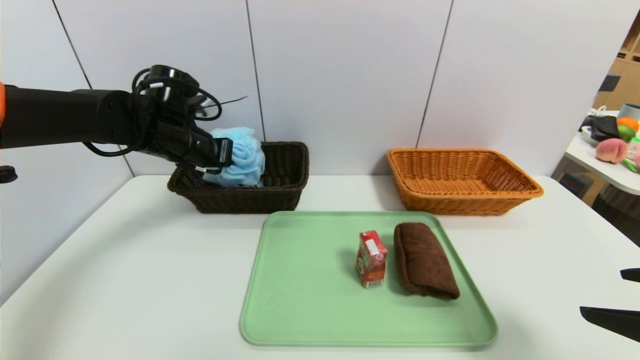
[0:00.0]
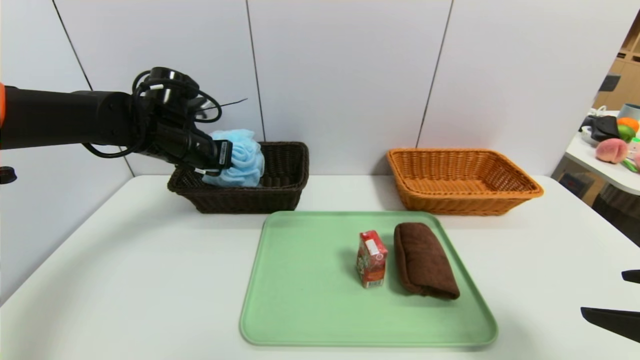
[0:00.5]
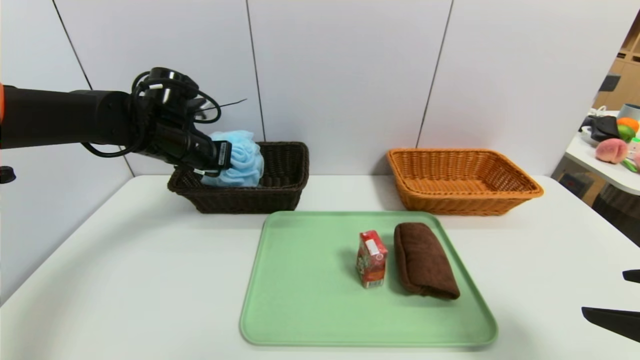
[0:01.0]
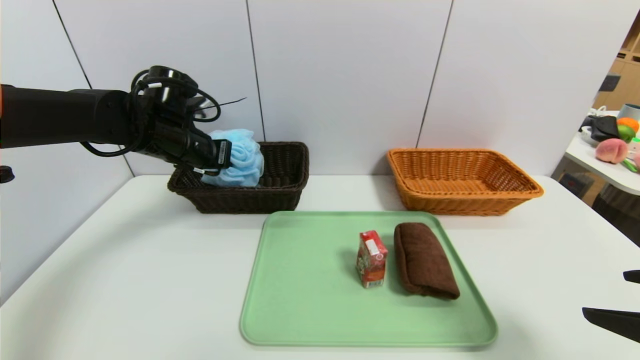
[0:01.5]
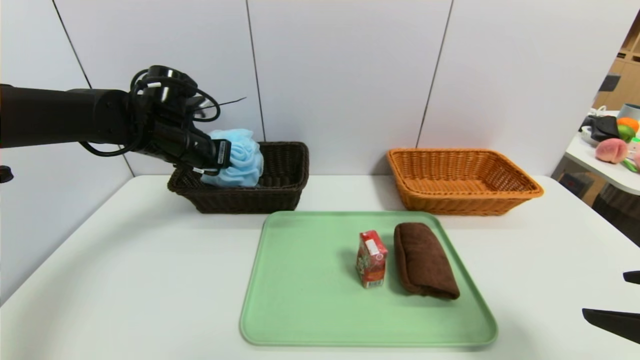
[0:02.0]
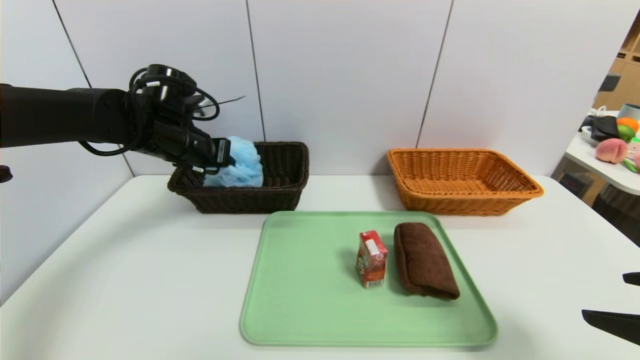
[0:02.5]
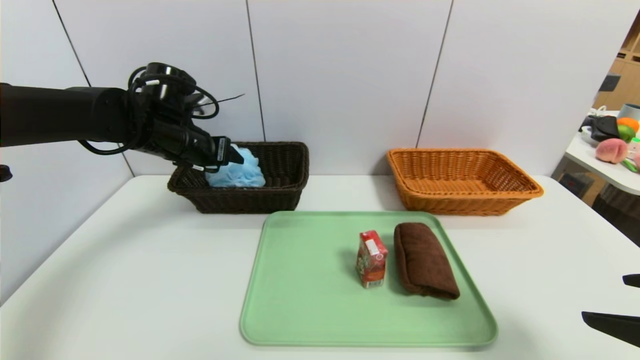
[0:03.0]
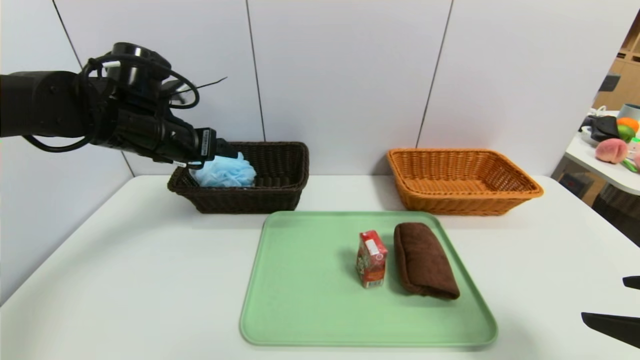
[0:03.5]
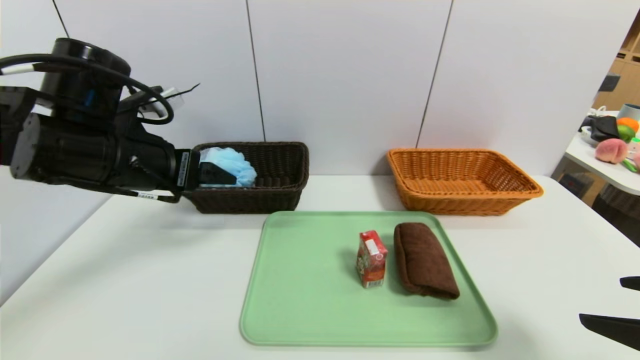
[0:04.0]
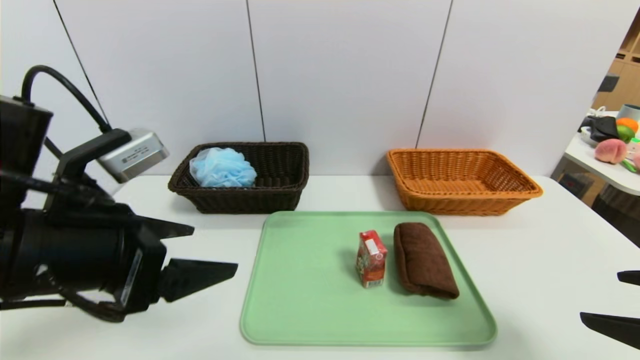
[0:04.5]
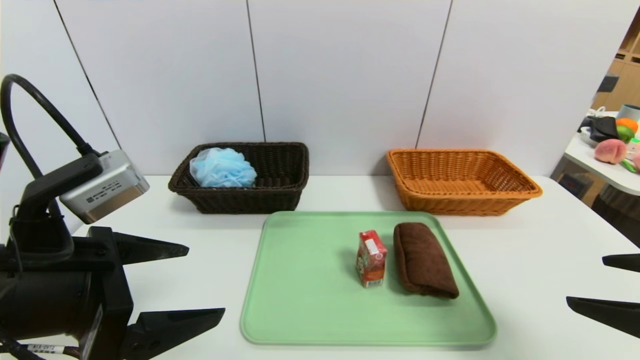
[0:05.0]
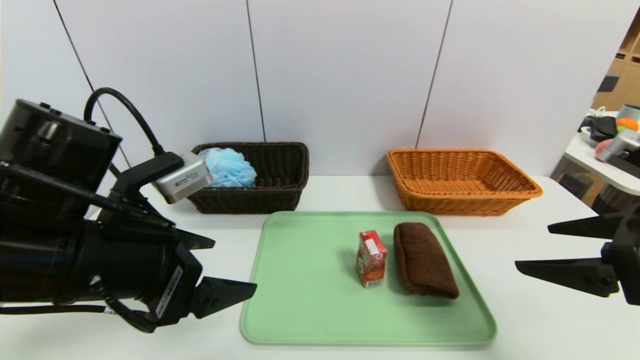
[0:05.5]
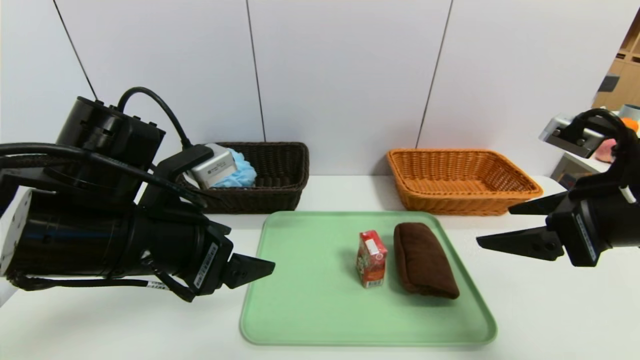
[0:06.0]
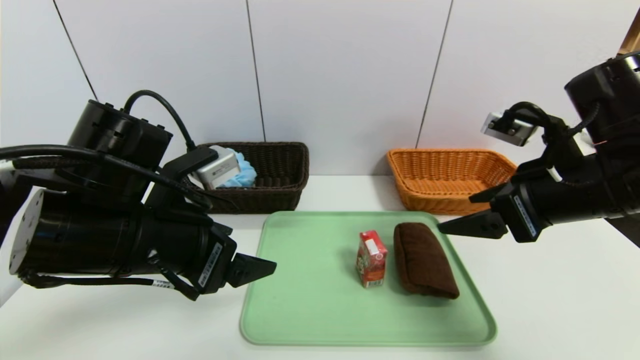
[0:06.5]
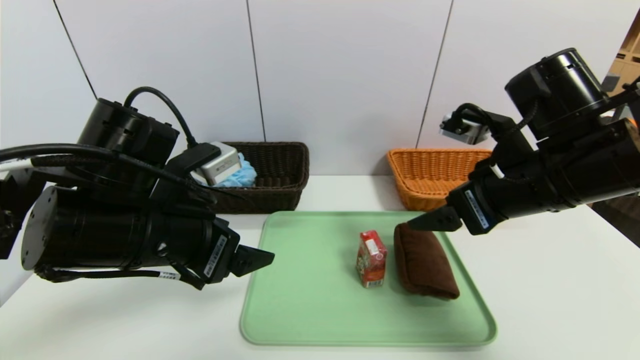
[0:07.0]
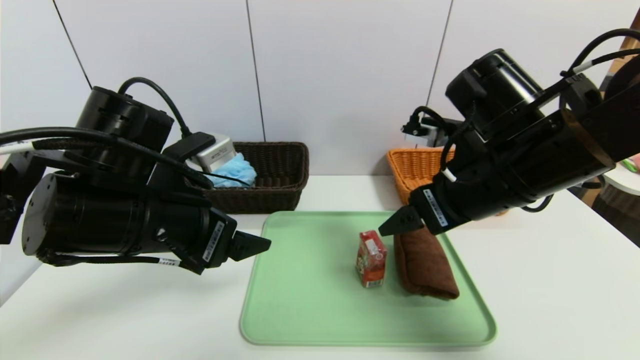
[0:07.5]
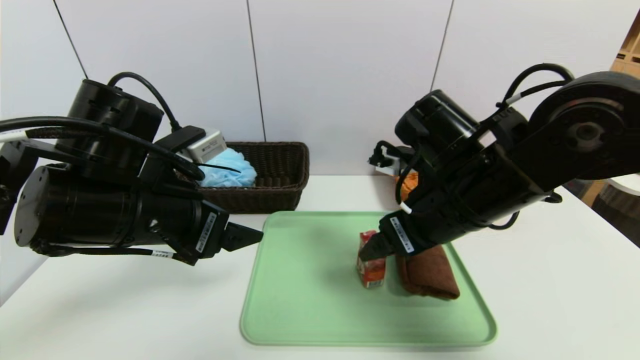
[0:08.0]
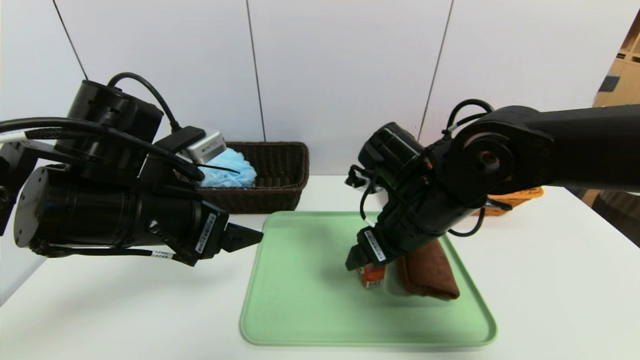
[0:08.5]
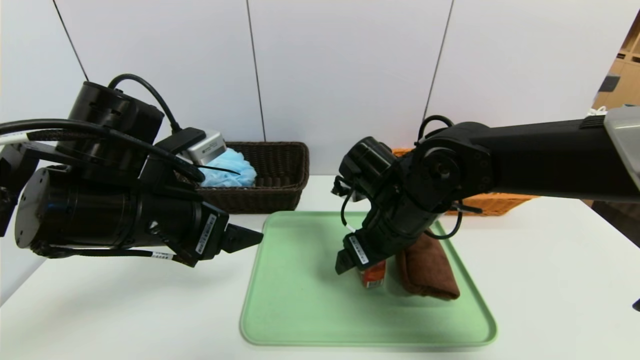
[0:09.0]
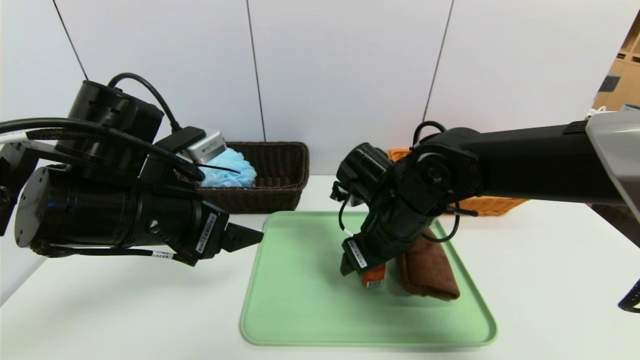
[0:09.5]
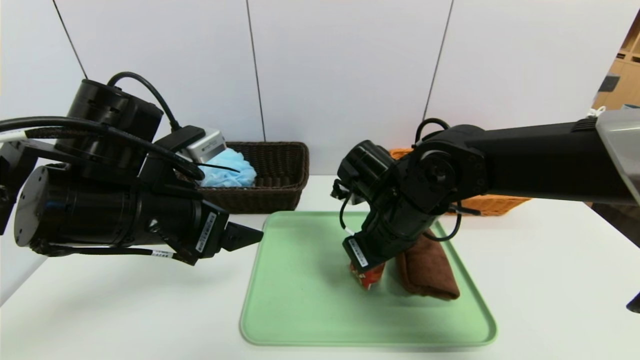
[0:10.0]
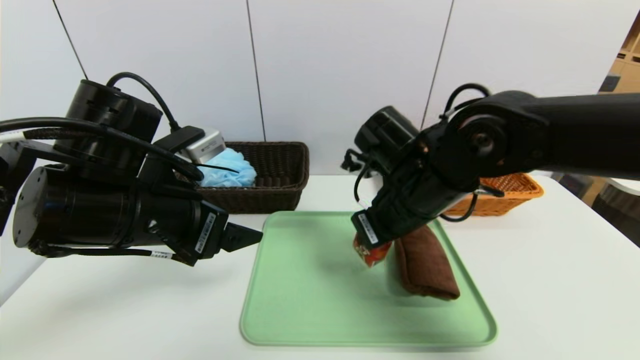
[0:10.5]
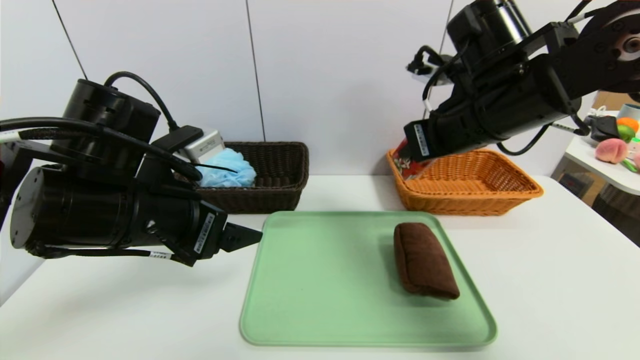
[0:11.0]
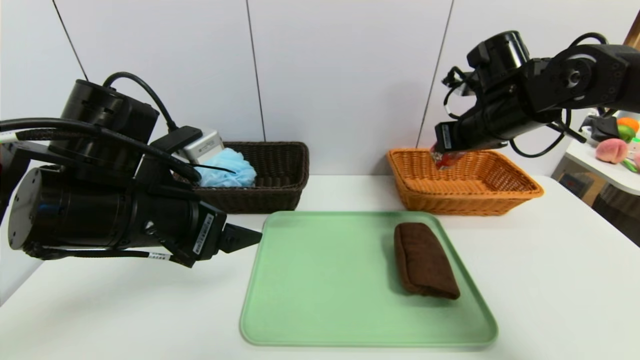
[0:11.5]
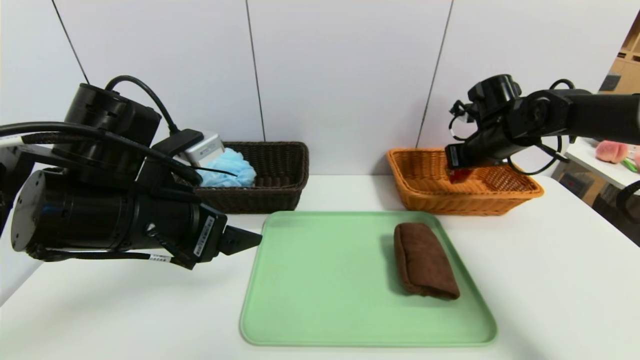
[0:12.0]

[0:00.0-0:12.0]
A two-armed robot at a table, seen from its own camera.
Task of the whole recording: place the food in the right basket with the right gripper, and place the non food items in the left basket with the left gripper.
Step, 0:00.0 to 0:03.0: Grasp the shower sphere and put it in the left basket.
0:00.0 to 0:02.0: The two grippers keep their place.
0:02.0 to 0:04.0: The left gripper heads backward, covering approximately 15 cm, and opens up.
0:04.0 to 0:06.0: The left gripper heads backward and to the right, covering roughly 10 cm. The right gripper travels forward by some 10 cm.
0:06.0 to 0:08.0: The right gripper is displaced to the left by some 15 cm.
0:08.0 to 0:10.0: The right gripper is displaced downward by approximately 5 cm, and closes.
0:10.0 to 0:12.0: The right gripper goes about 25 cm to the right and forward.

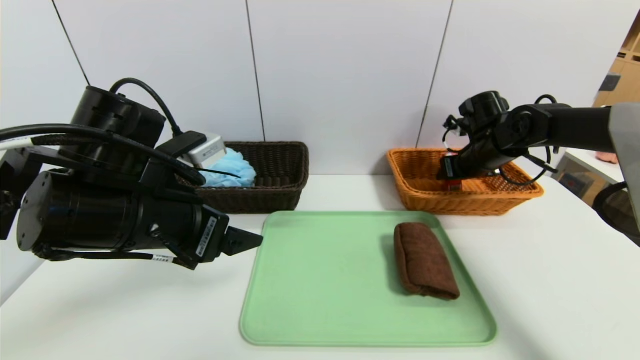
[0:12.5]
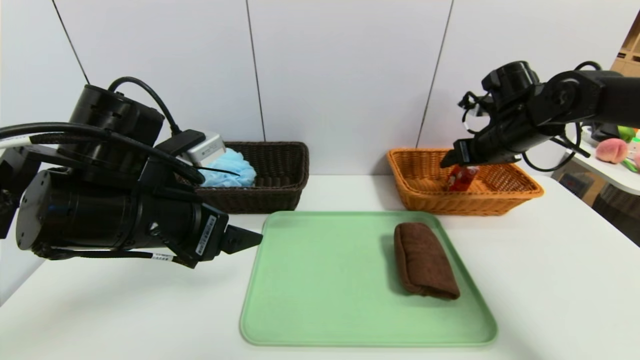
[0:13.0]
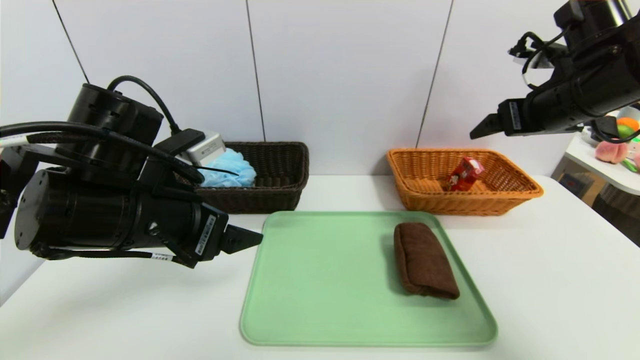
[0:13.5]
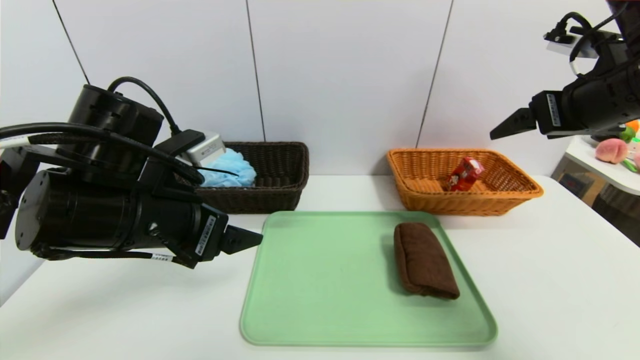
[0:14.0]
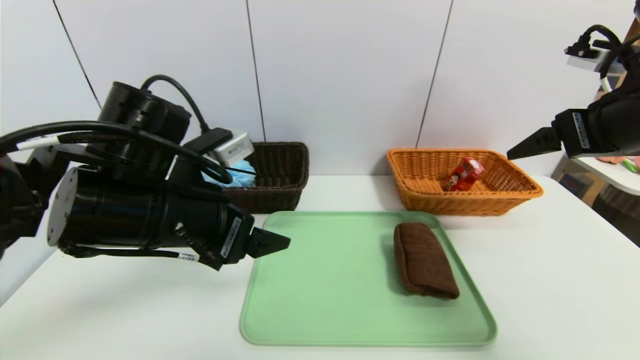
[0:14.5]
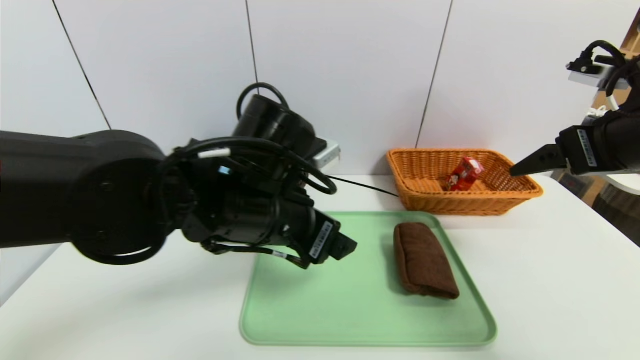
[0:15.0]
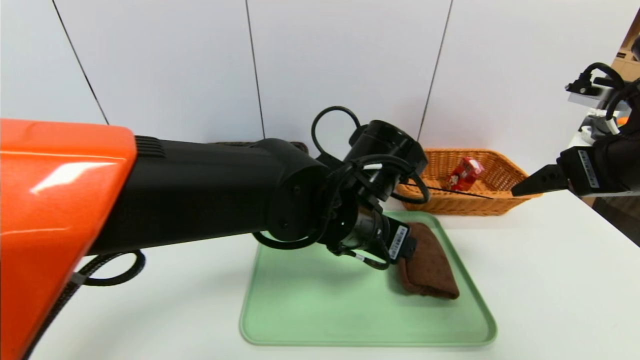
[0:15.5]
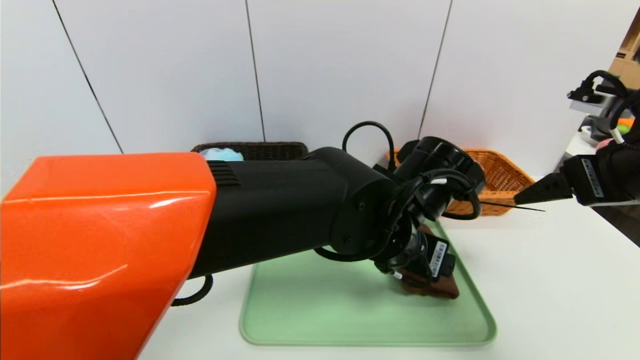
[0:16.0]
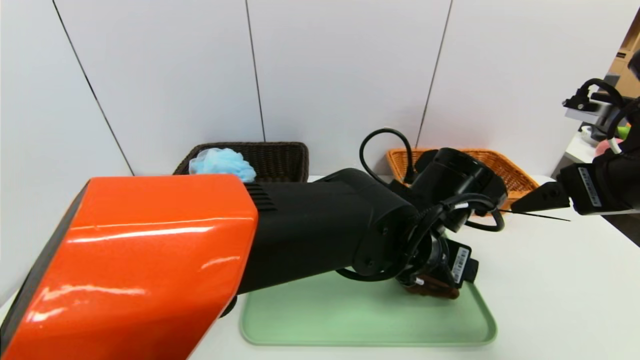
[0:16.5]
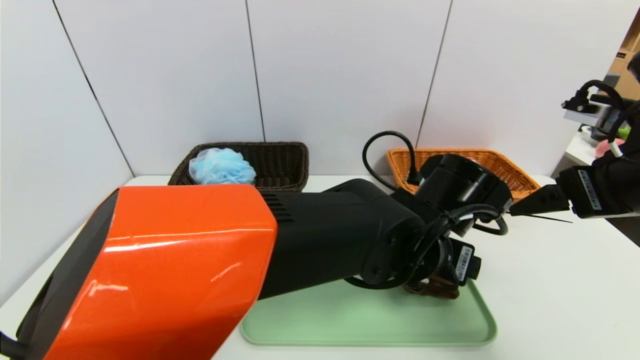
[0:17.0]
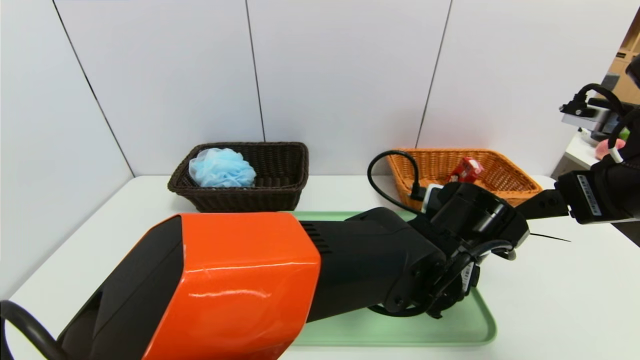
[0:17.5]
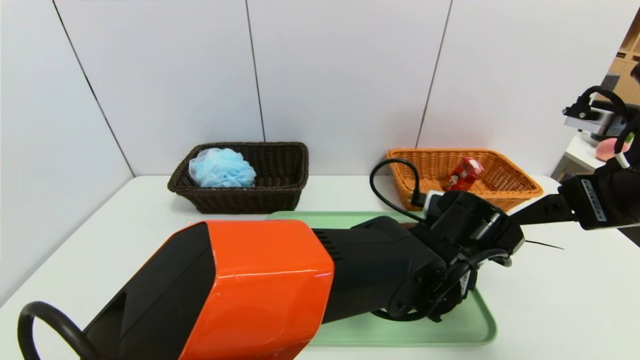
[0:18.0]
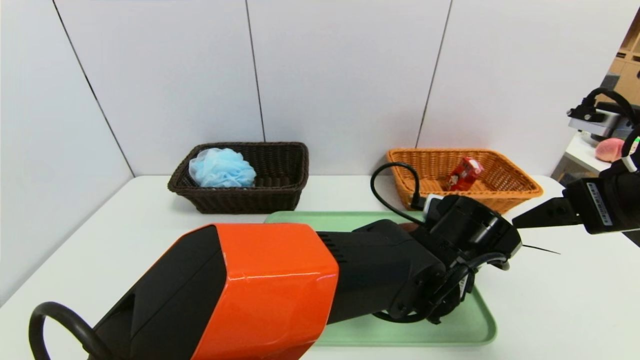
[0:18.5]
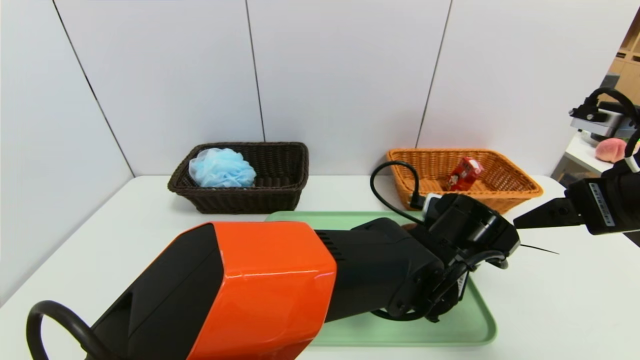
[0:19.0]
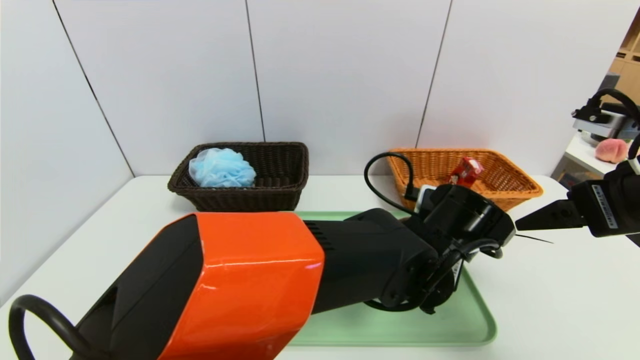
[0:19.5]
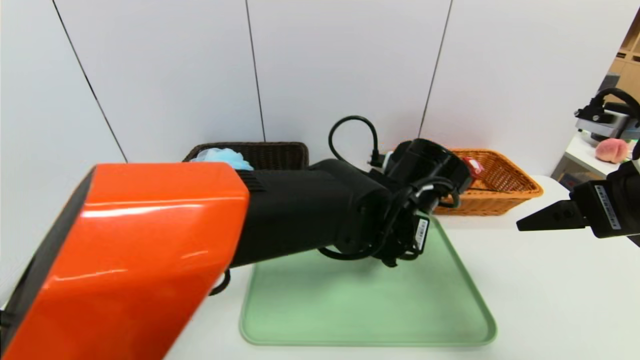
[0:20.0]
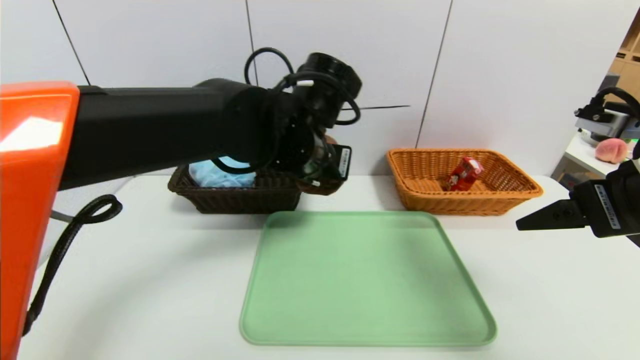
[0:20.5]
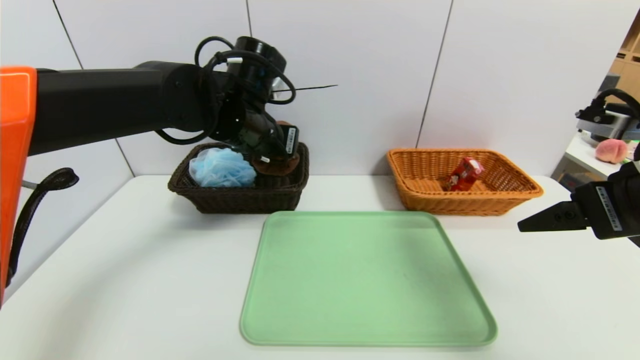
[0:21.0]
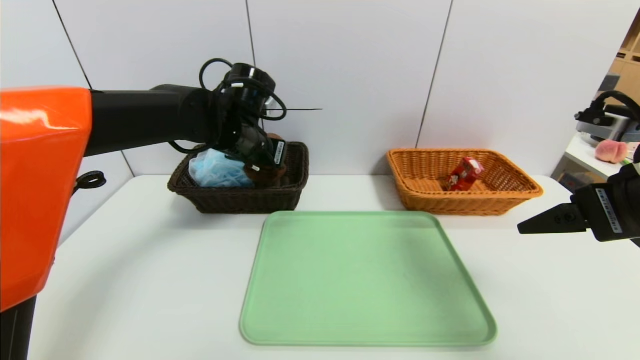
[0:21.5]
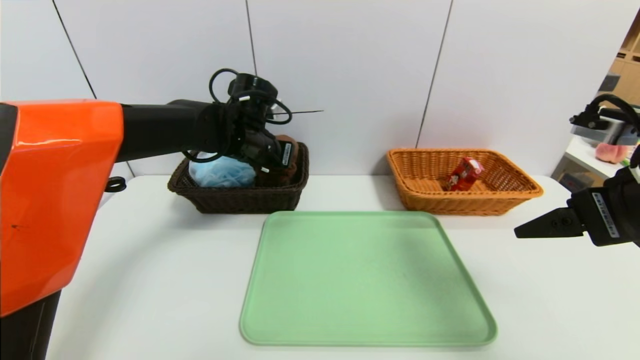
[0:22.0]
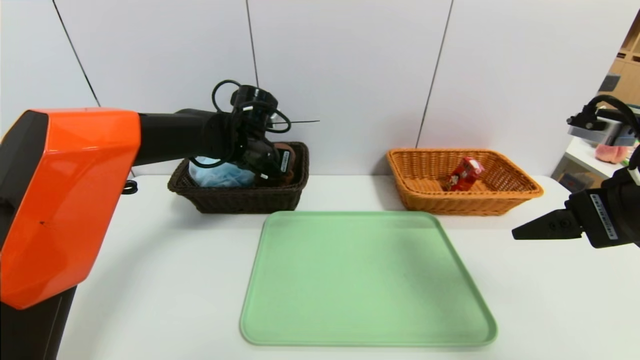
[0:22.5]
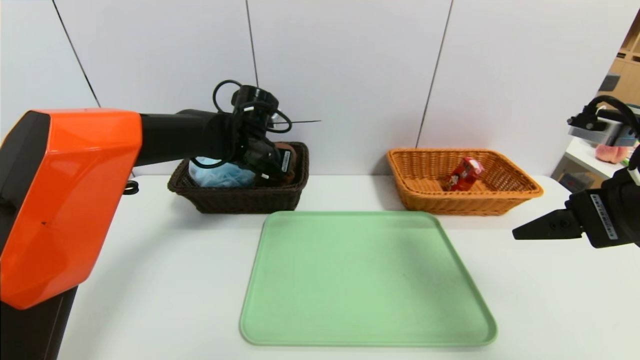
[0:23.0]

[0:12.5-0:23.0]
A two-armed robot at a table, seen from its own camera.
Task of the whole recording: place the food in the right basket with the right gripper, and place the non food items in the left basket with the left gripper.
0:12.5 to 0:14.5: The right gripper shifts roughly 25 cm backward and upward, and opens.
0:14.5 to 0:16.5: The right gripper ends up roughly 5 cm from where it was, while the left gripper is displaced to the right by approximately 25 cm.
0:16.5 to 0:19.0: The left gripper goes approximately 5 cm downward, and closes.
0:19.0 to 0:21.0: The left gripper travels to the left, upward and forward by about 30 cm.
0:21.0 to 0:23.0: The left gripper shifts approximately 10 cm downward and forward.
